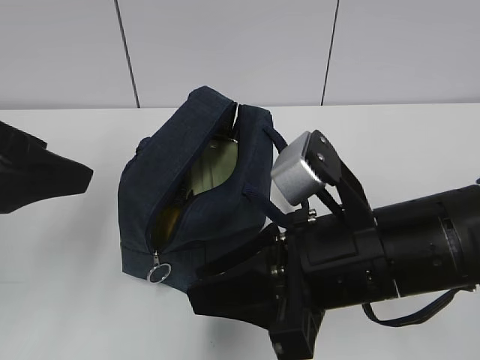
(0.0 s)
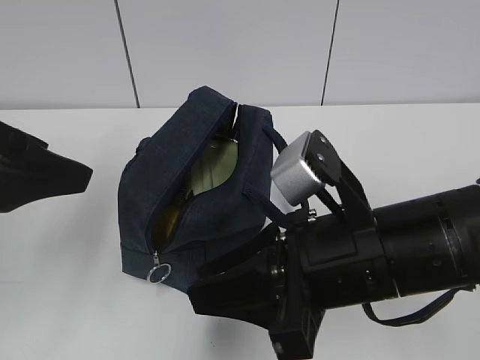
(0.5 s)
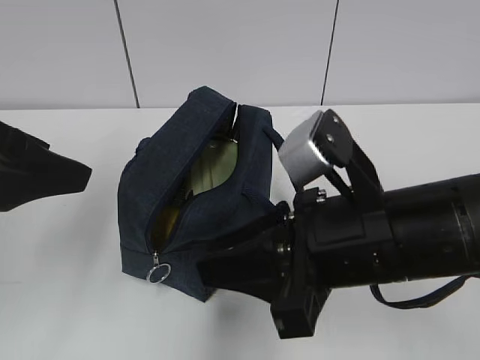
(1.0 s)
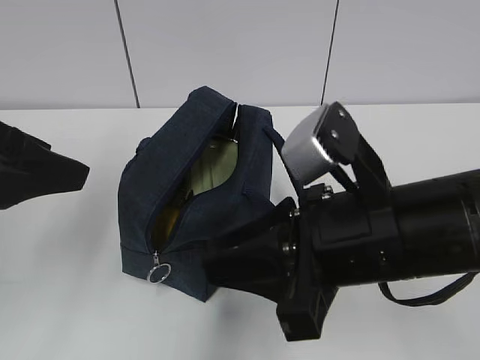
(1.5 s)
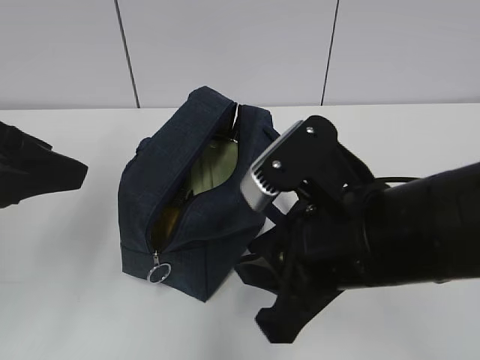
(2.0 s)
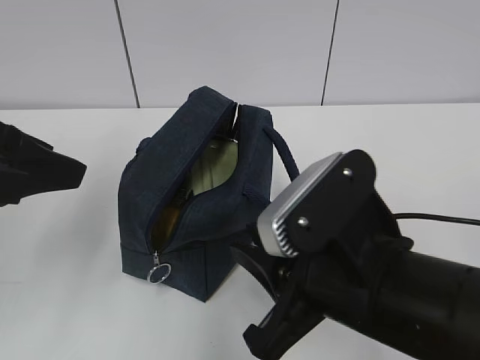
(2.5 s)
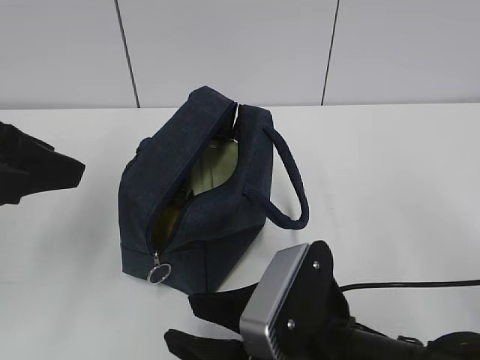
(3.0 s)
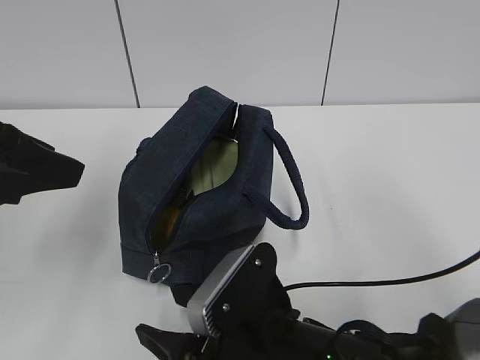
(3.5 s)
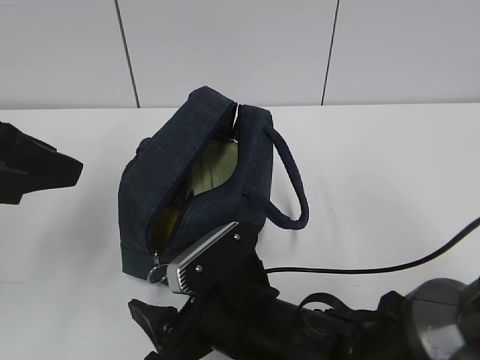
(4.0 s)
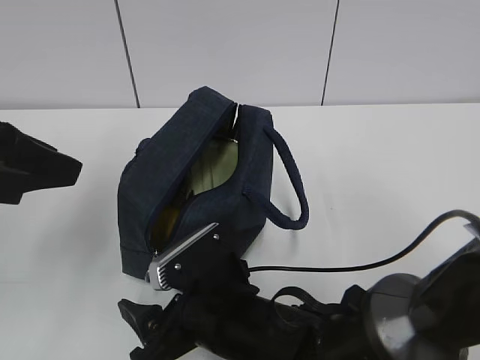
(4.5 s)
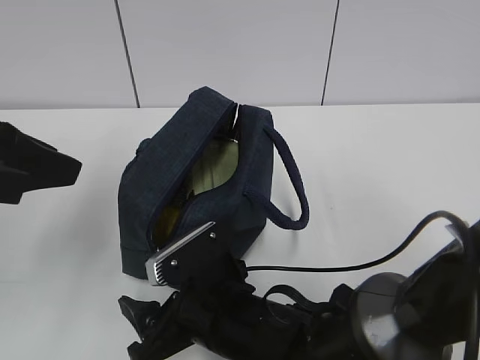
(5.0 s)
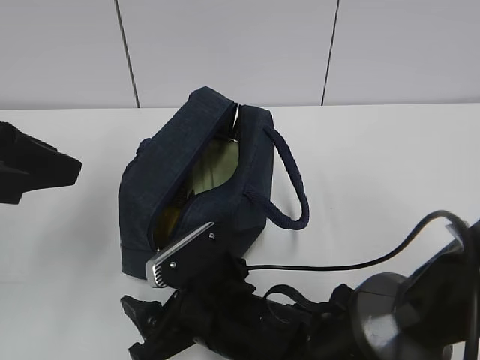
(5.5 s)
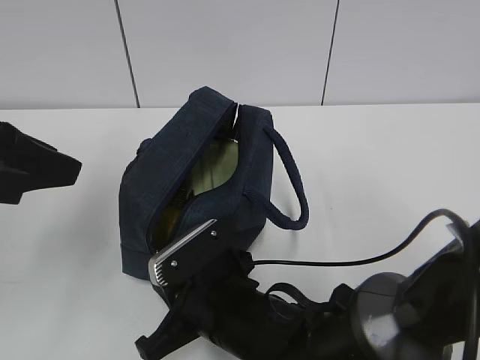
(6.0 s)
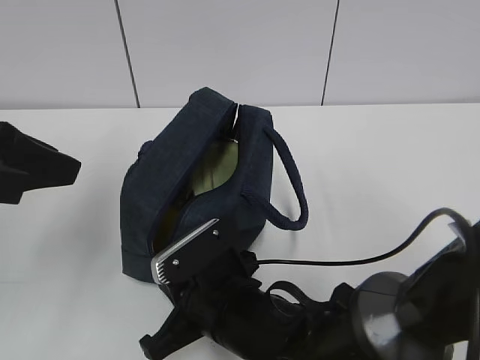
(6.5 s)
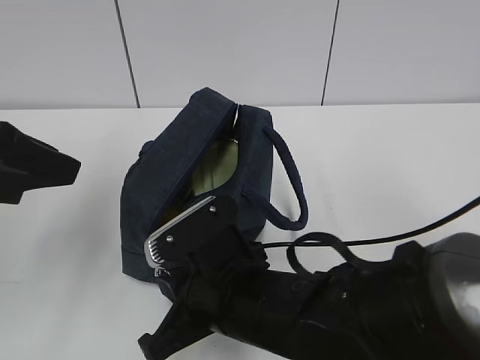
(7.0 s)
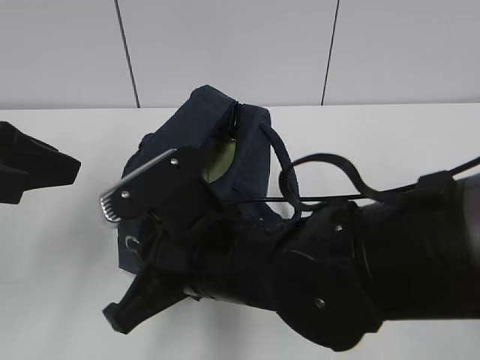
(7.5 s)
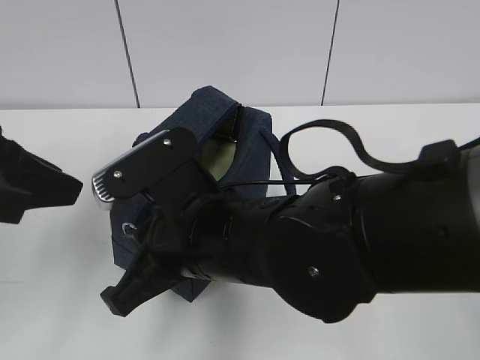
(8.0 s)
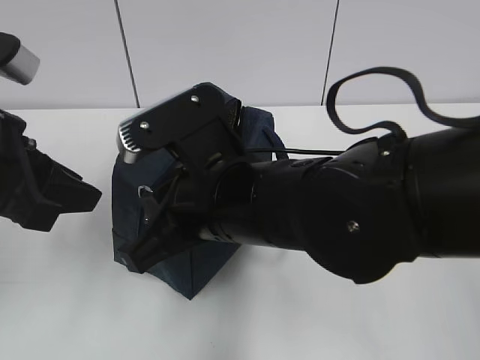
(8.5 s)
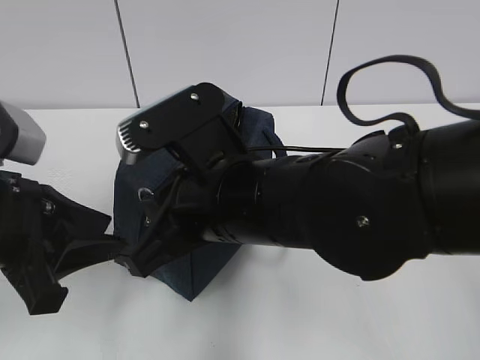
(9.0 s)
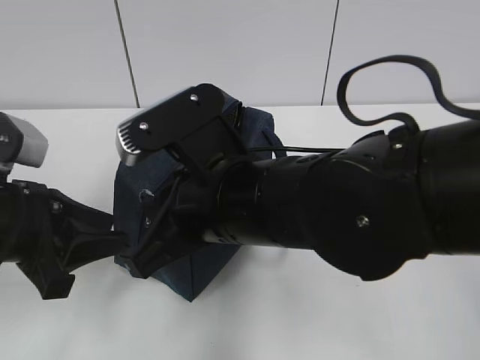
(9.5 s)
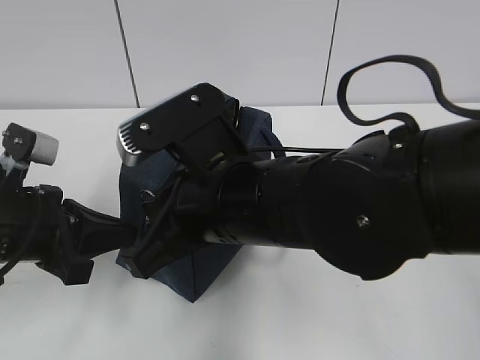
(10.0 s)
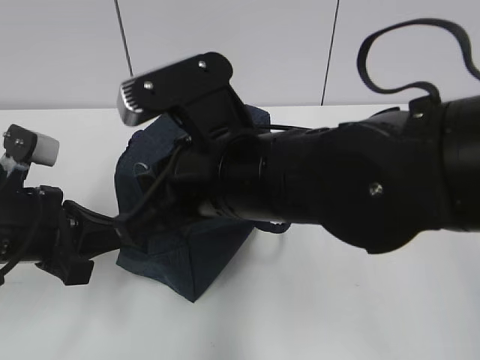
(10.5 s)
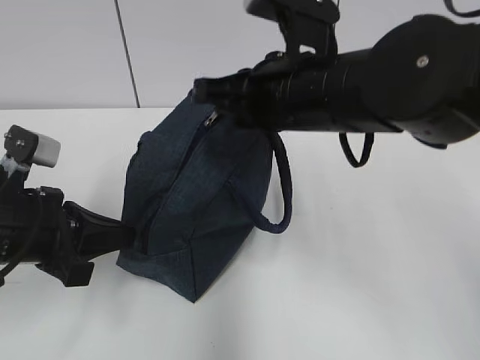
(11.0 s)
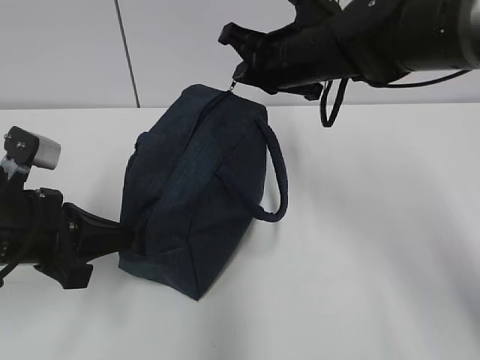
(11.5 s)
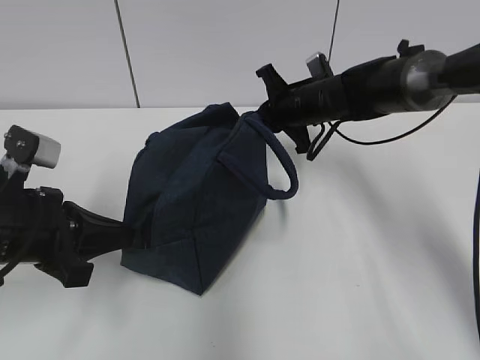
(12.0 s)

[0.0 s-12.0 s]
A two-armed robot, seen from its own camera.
2.0 to 4.0 s: The right gripper is displaced downward and to the left by some 15 cm, and opens its fingers.
4.0 to 6.0 s: The right gripper closes up.
6.0 to 8.0 s: The right gripper shifts some 10 cm upward.
8.0 to 10.0 s: The left gripper heads downward, covering roughly 10 cm, and closes its fingers.
10.0 to 12.0 s: The right gripper is displaced forward and to the right by approximately 30 cm.

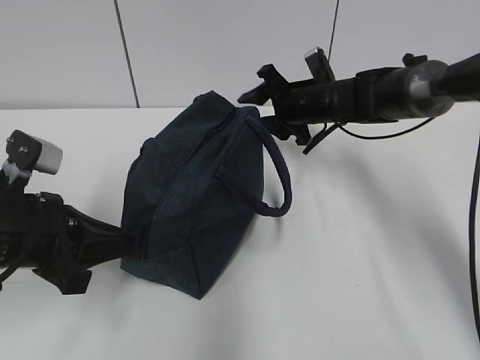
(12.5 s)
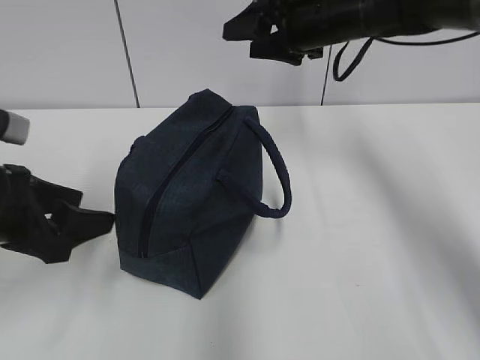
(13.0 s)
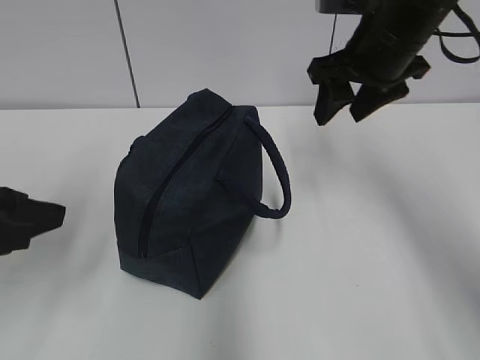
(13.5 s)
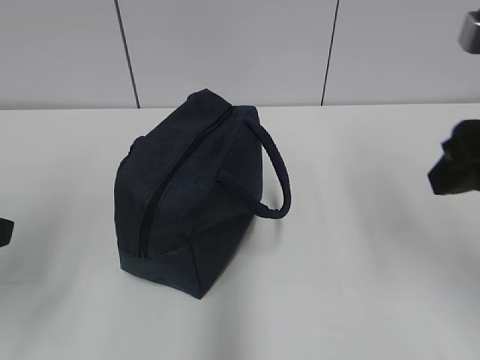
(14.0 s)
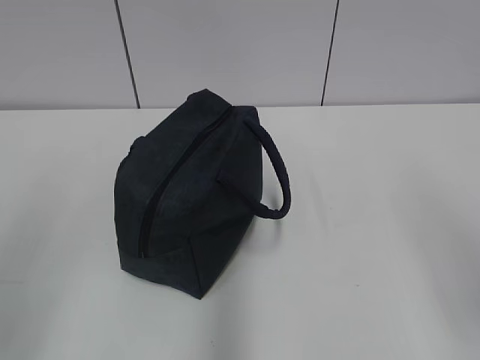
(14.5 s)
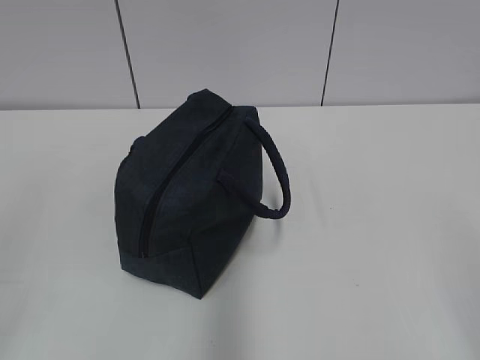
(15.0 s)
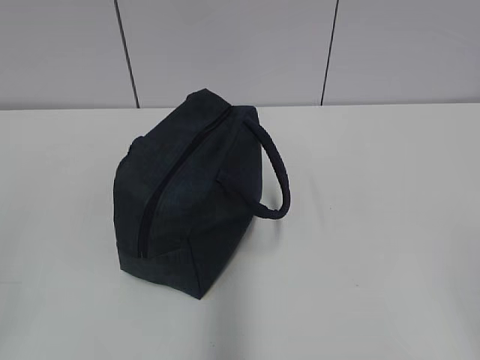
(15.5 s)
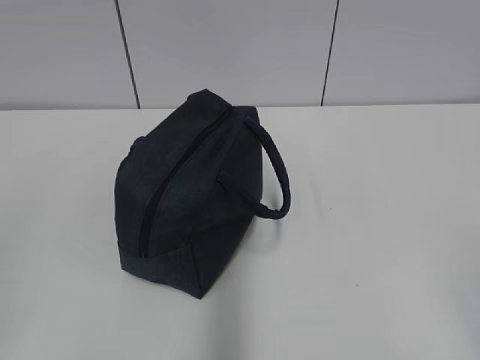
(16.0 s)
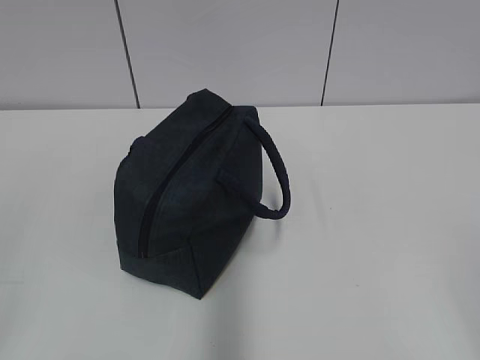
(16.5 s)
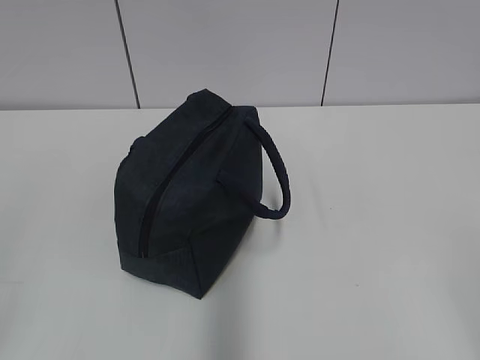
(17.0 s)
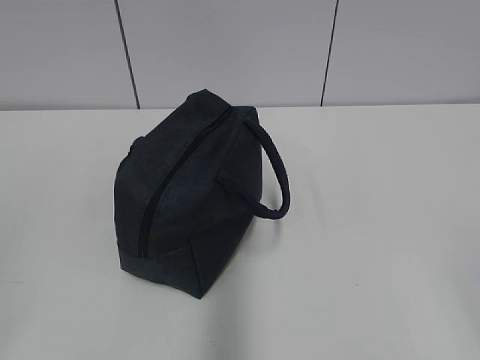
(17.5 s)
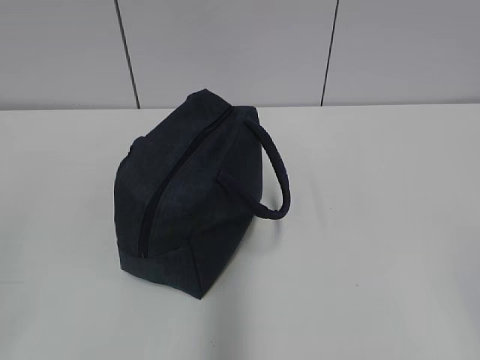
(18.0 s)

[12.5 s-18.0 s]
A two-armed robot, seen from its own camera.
12.5 to 14.5 s: The right gripper is displaced backward by approximately 40 cm. The left gripper moves backward and upward, roughly 20 cm, and opens, then closes again.
14.5 to 16.0 s: The left gripper heads backward, covering roughly 5 cm.

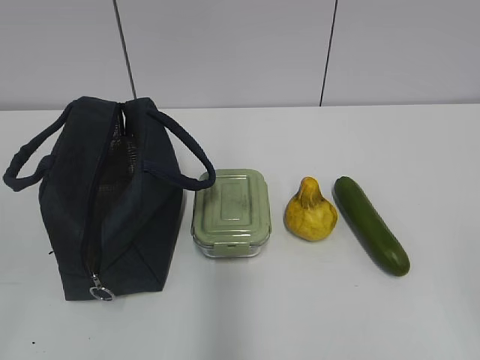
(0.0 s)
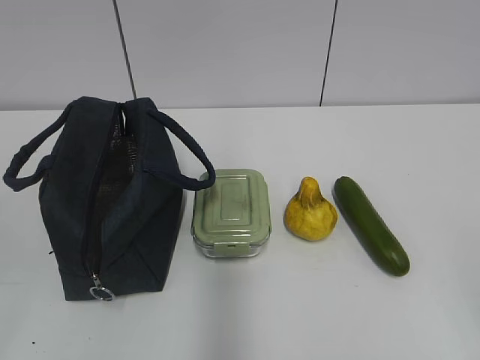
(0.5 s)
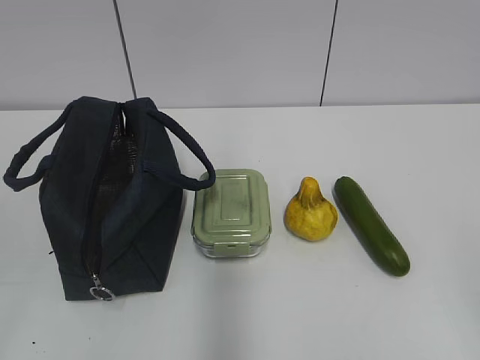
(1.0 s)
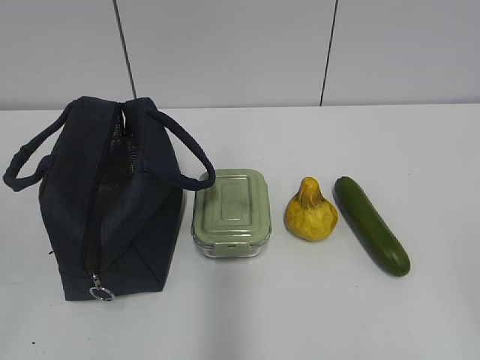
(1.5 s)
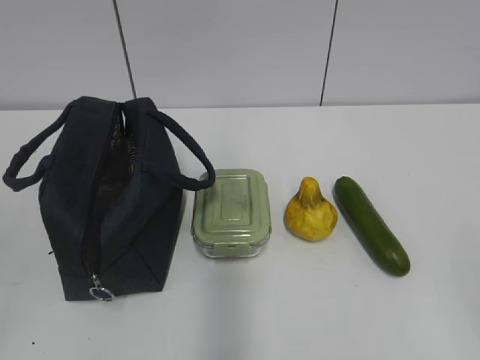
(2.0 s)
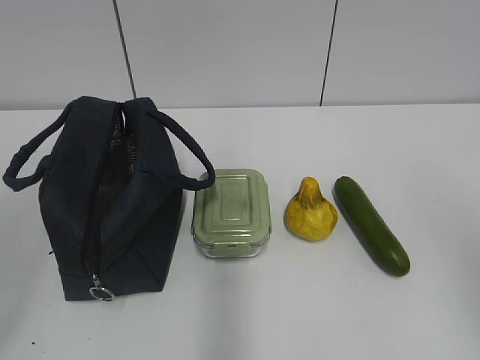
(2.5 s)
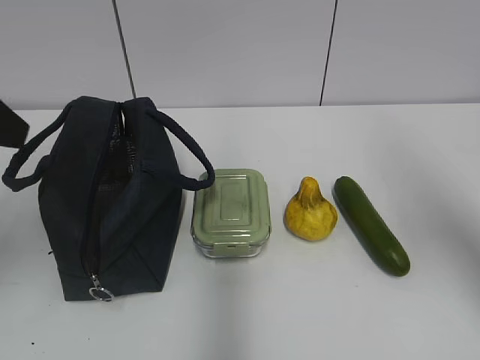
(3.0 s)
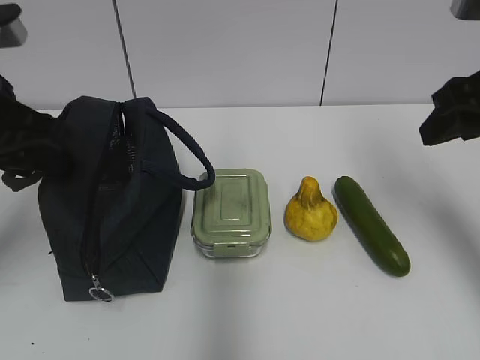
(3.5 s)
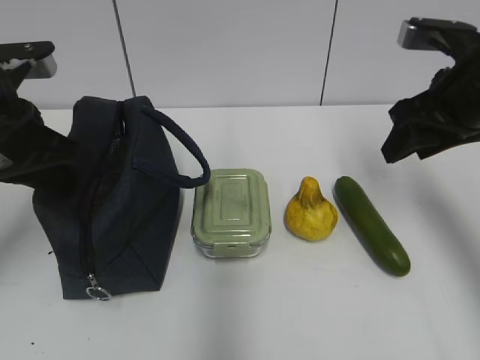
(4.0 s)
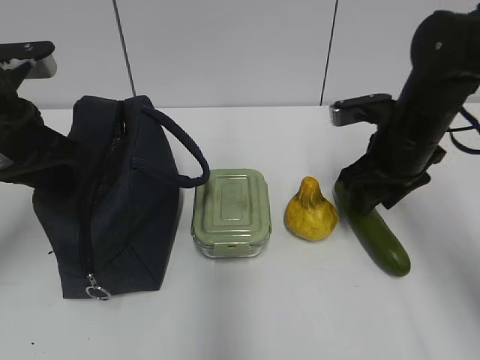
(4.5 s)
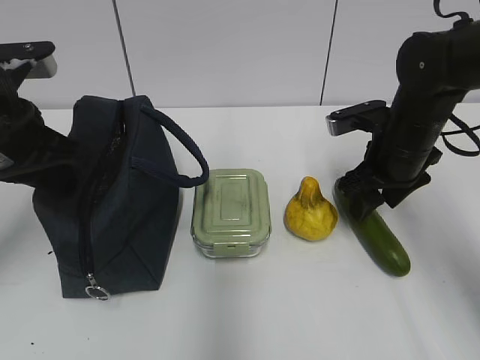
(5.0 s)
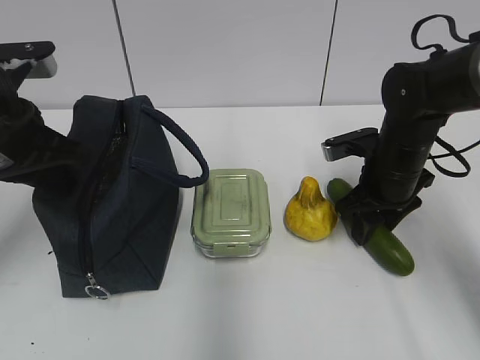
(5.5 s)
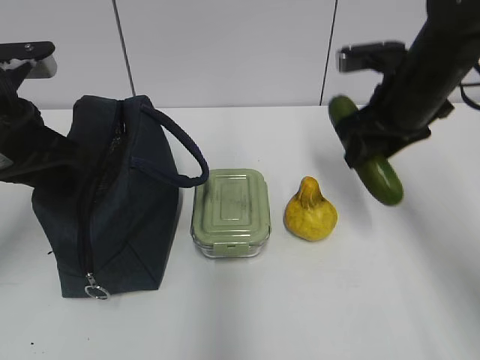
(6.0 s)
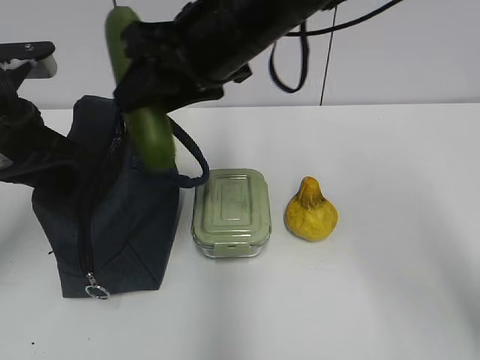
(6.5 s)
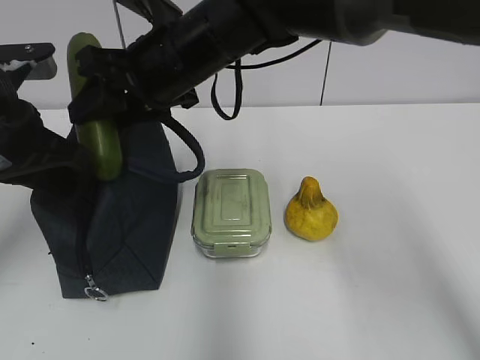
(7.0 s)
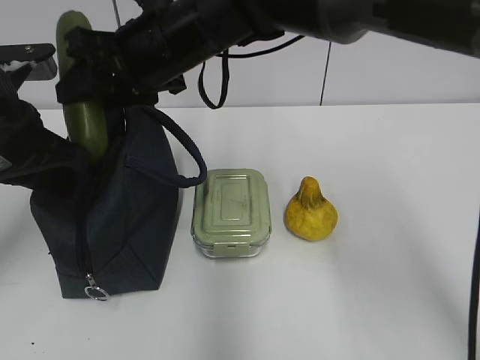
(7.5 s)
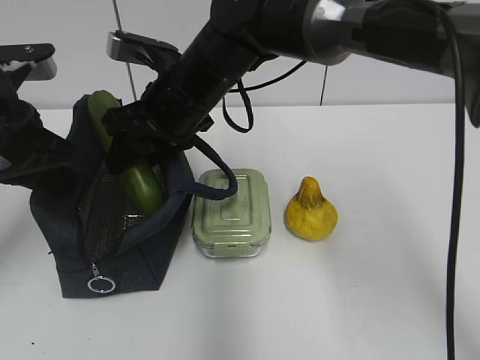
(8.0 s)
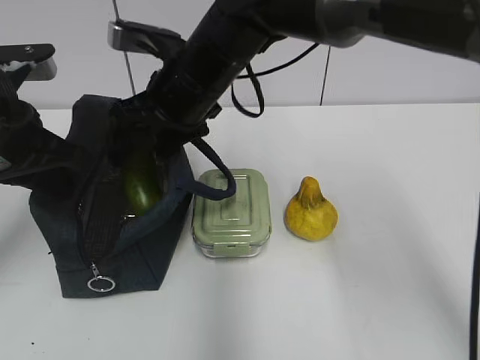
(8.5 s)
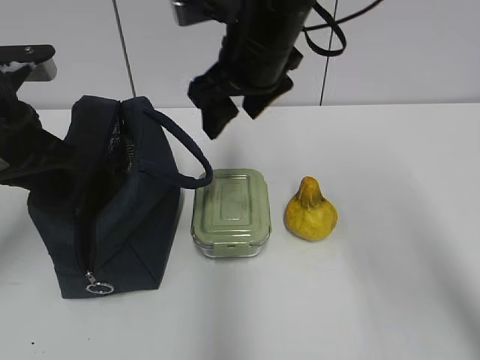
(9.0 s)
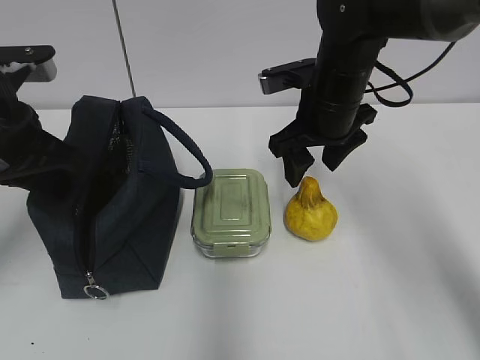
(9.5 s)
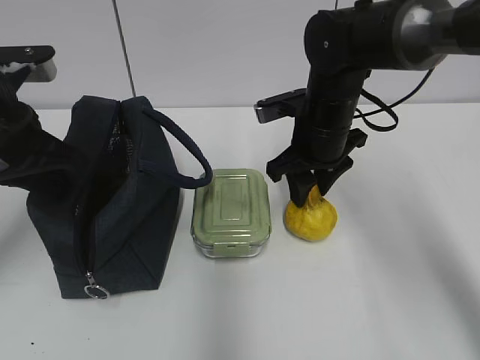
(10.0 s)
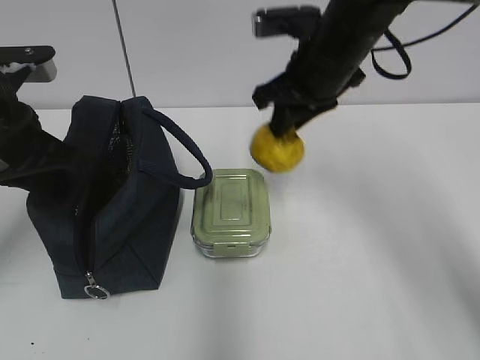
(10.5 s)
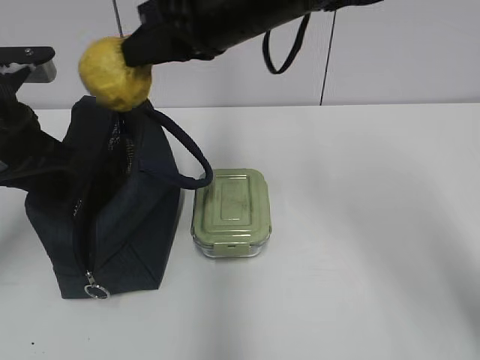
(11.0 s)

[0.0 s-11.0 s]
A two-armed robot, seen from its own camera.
2.0 to 3.5 s: Both grippers move forward, some 30 cm.
3.5 to 5.5 s: The left gripper closes its fingers. The right gripper shifts about 20 cm downward and forward.
5.5 to 7.5 s: The right gripper moves to the left and upward, some 30 cm.
7.5 to 9.0 s: The right gripper heads to the right, covering roughly 10 cm.
9.0 to 11.0 s: The right gripper reaches approximately 10 cm downward, then returns, and closes its fingers.
